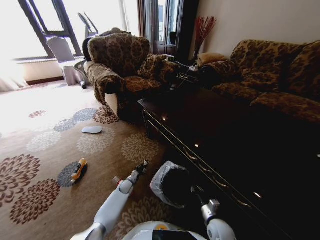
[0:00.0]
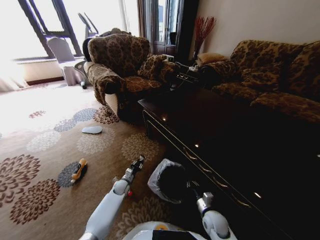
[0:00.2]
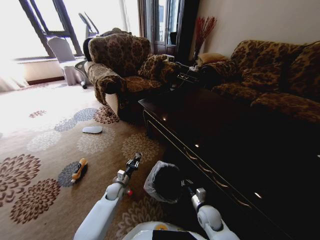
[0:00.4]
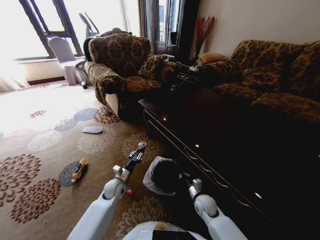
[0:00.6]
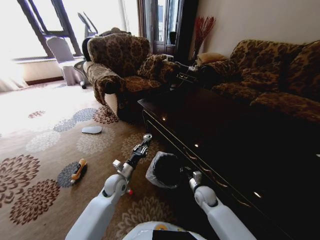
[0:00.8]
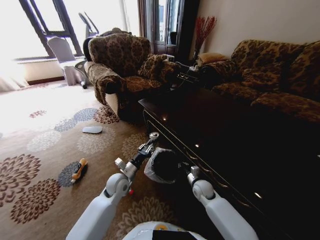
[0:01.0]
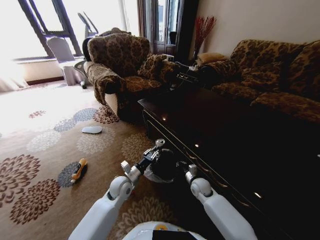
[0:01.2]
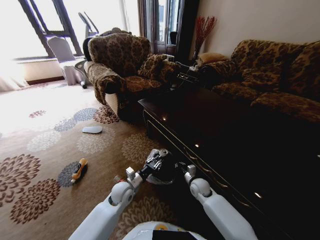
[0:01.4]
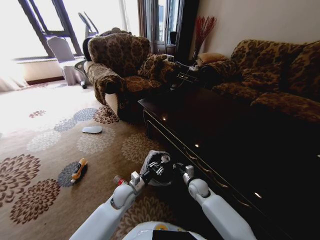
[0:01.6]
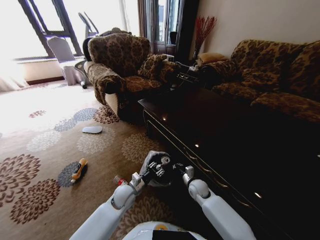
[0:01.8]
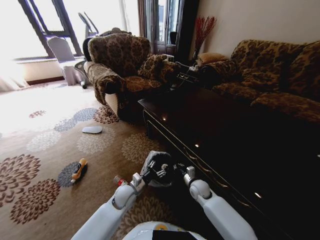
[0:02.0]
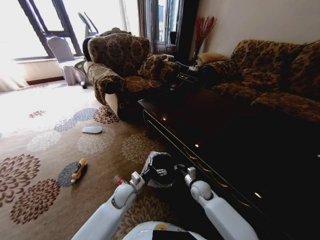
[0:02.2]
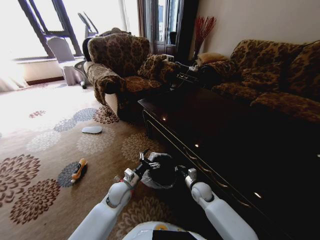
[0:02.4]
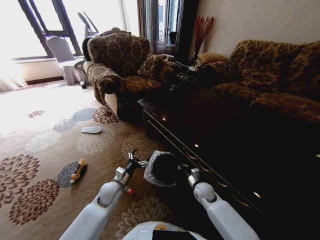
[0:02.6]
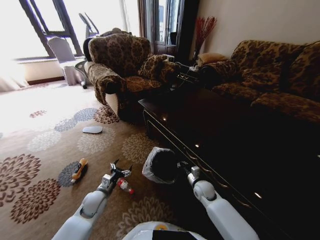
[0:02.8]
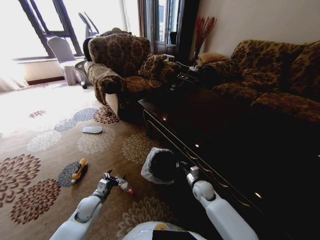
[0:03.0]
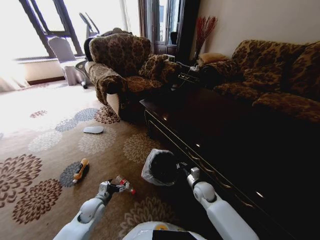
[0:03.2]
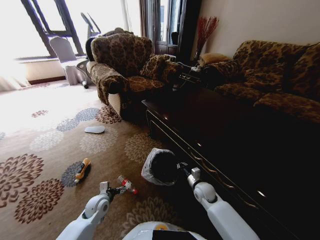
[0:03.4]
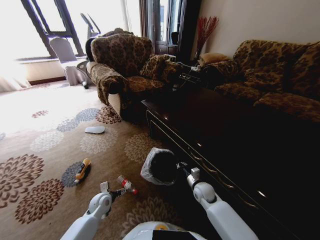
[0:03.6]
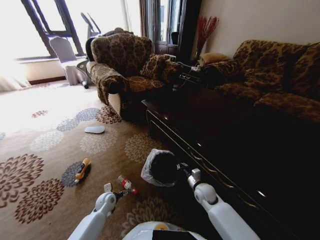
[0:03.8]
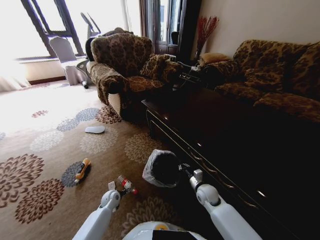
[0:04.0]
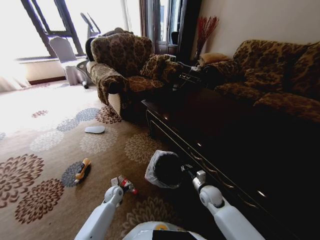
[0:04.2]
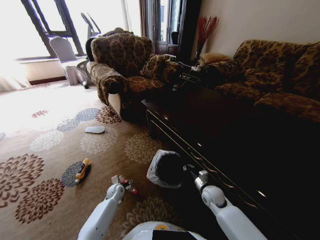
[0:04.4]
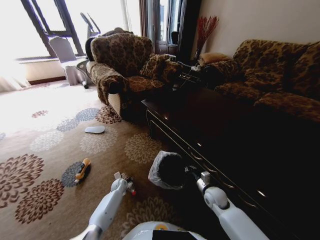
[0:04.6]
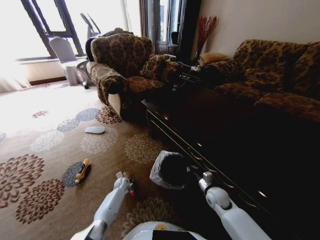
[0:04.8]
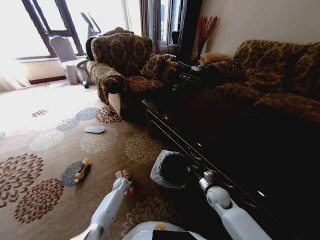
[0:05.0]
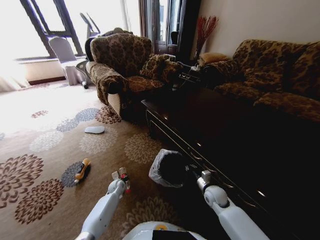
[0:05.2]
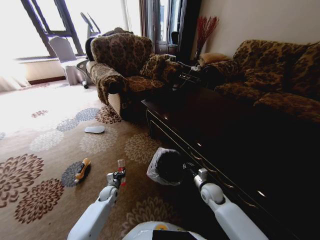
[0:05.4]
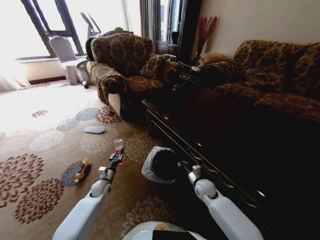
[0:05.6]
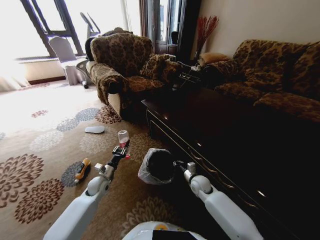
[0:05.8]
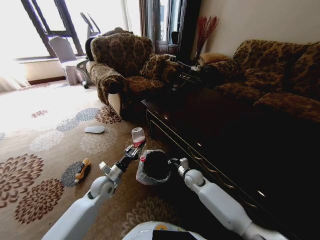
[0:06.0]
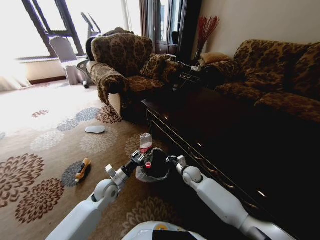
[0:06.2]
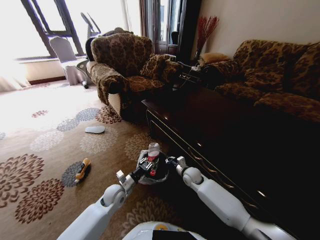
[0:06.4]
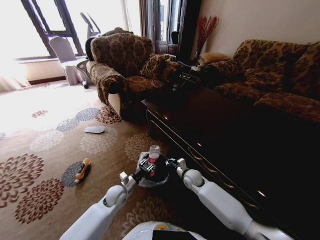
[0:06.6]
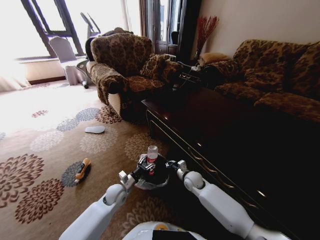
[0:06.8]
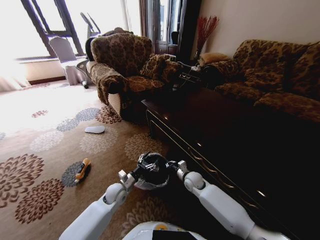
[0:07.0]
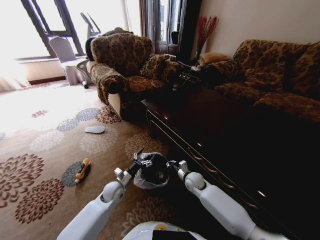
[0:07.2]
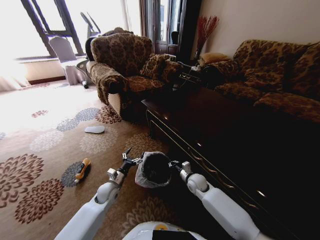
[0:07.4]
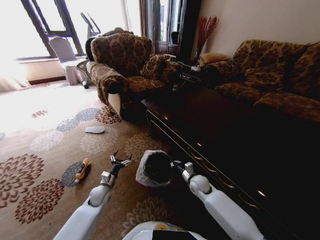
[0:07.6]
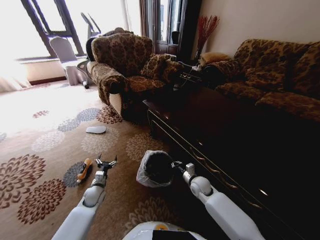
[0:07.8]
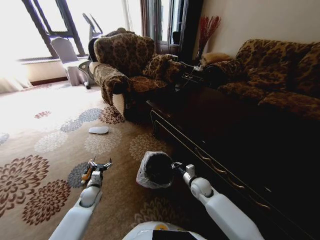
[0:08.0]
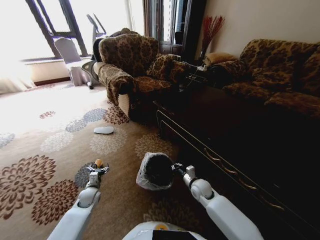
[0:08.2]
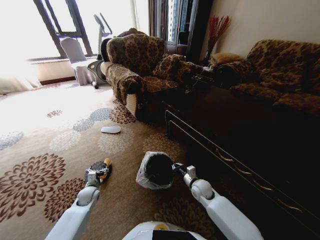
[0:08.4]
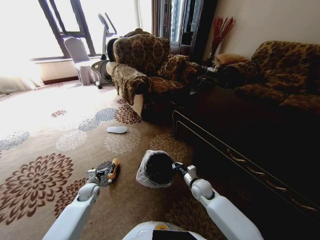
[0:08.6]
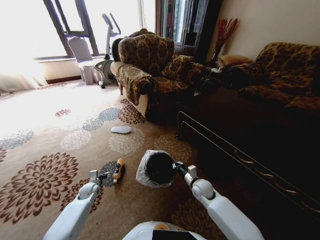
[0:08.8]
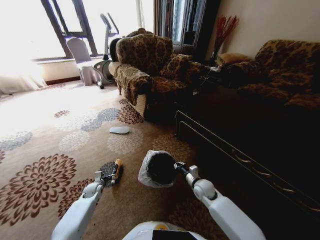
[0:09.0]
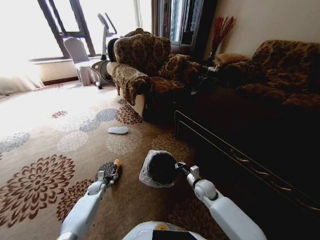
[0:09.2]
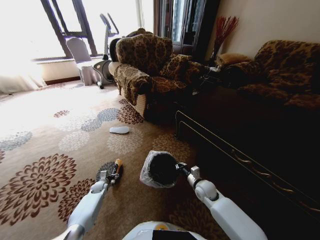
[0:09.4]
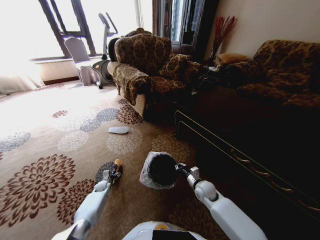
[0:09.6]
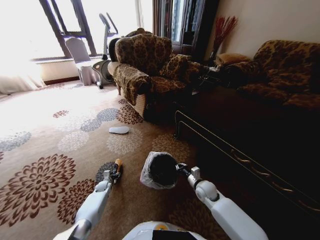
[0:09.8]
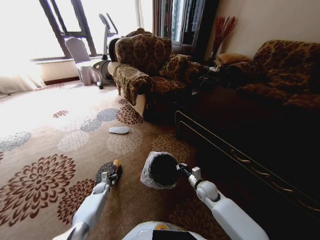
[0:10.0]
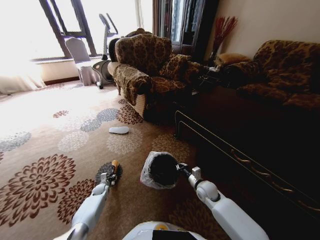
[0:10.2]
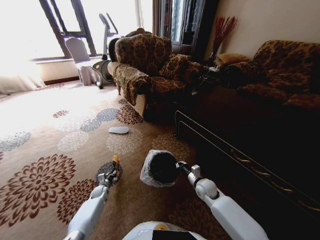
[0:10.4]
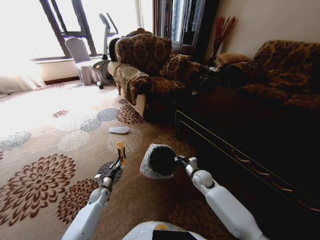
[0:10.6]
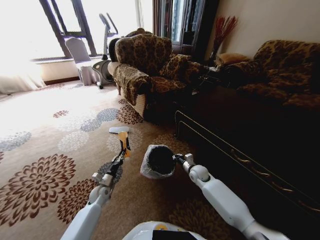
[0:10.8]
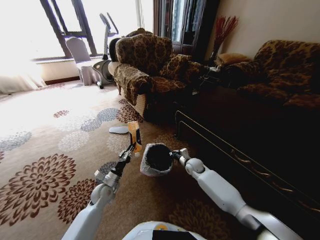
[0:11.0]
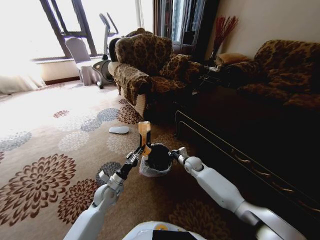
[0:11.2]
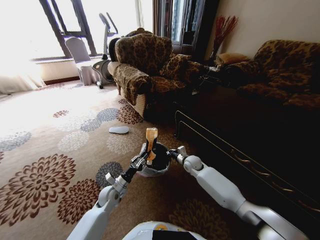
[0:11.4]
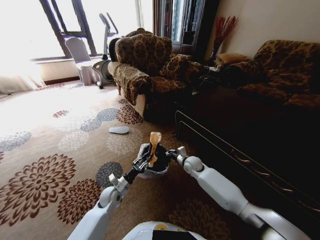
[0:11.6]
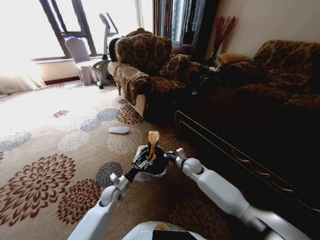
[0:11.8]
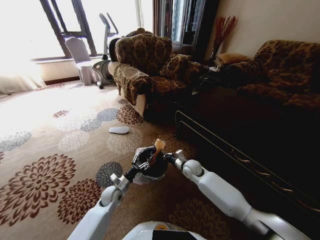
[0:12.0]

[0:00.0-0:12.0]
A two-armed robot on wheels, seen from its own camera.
Task of the whole recording: Pick up the trash from the ground and place it into the trash bin.
0:00.0 to 0:01.6: The right gripper shifts approximately 15 cm forward. The left gripper moves upward and backward, roughly 20 cm.
0:01.6 to 0:03.0: The left gripper shifts about 15 cm to the left, and opens up.
0:03.0 to 0:04.4: The left gripper is displaced downward, forward and to the right by about 15 cm.
0:04.4 to 0:06.0: The right gripper shifts about 10 cm forward and to the left. The left gripper goes approximately 20 cm upward, and closes its fingers.
0:06.0 to 0:07.6: The left gripper moves downward, approximately 10 cm, and opens.
0:07.6 to 0:09.0: The left gripper shifts approximately 10 cm to the left and downward.
0:09.0 to 0:10.4: The left gripper travels downward by roughly 5 cm, and closes up.
0:10.4 to 0:12.0: The left gripper shifts some 20 cm upward and to the right, and opens its fingers. Meanwhile the right gripper travels forward and to the left by about 10 cm.

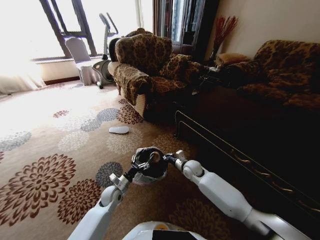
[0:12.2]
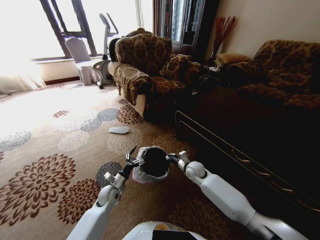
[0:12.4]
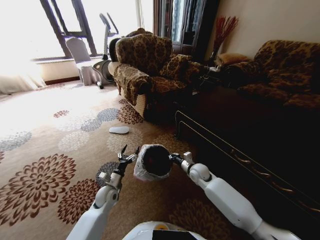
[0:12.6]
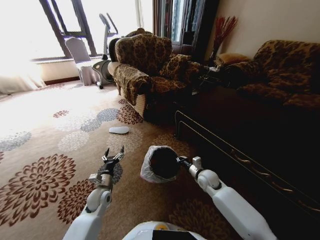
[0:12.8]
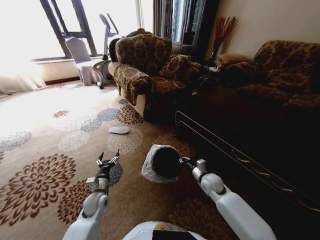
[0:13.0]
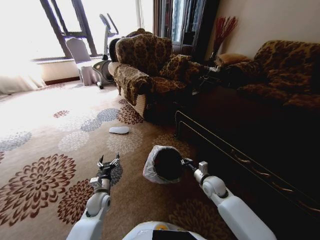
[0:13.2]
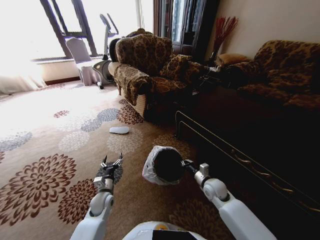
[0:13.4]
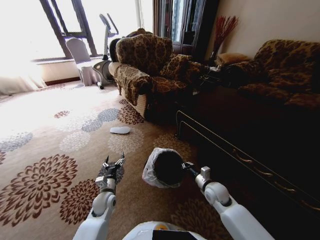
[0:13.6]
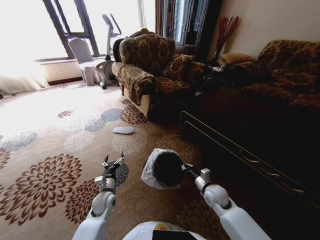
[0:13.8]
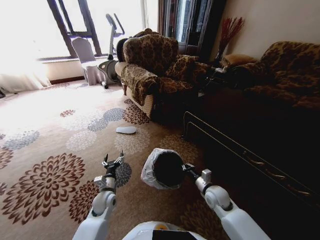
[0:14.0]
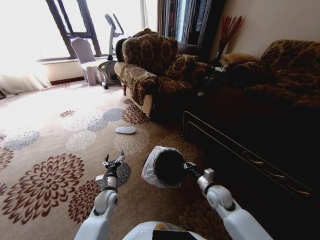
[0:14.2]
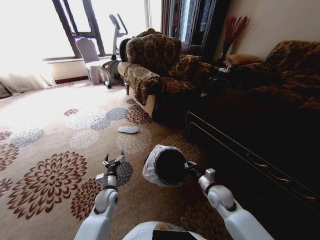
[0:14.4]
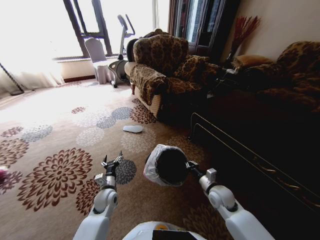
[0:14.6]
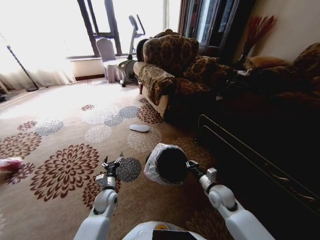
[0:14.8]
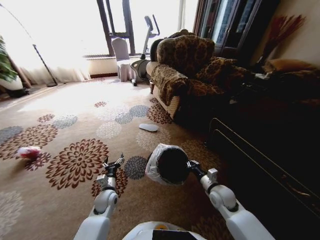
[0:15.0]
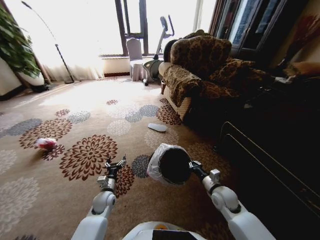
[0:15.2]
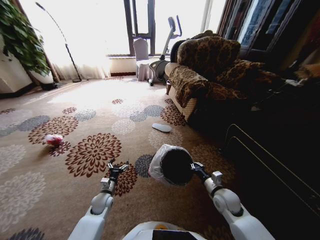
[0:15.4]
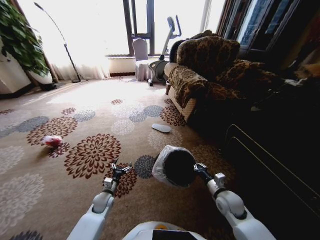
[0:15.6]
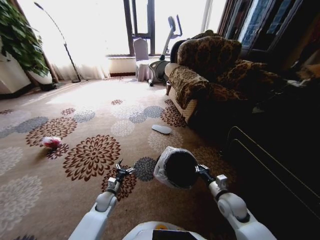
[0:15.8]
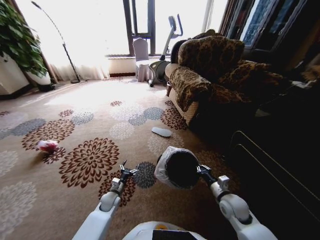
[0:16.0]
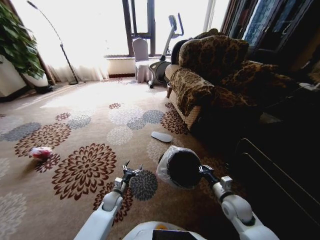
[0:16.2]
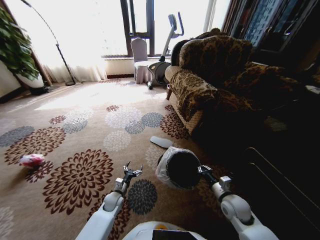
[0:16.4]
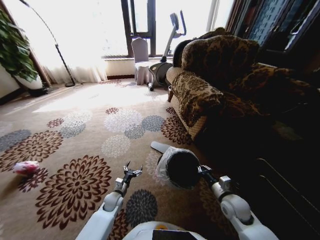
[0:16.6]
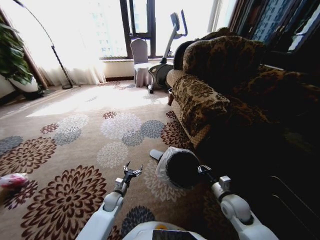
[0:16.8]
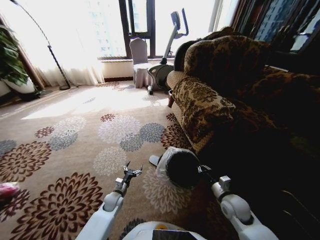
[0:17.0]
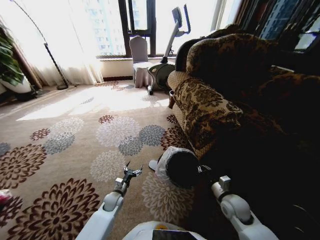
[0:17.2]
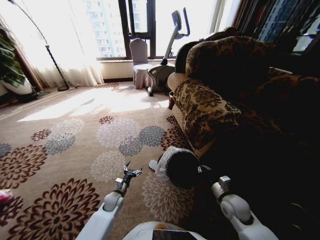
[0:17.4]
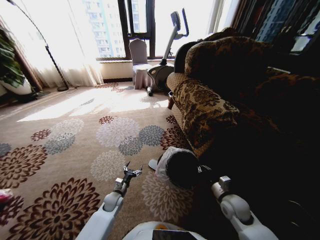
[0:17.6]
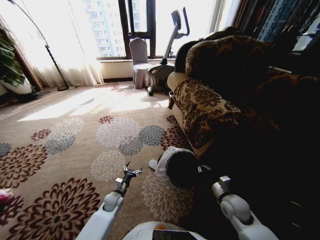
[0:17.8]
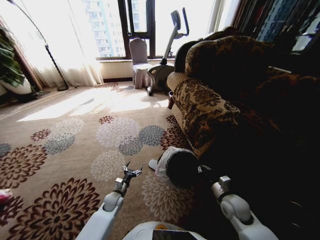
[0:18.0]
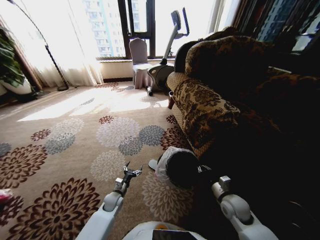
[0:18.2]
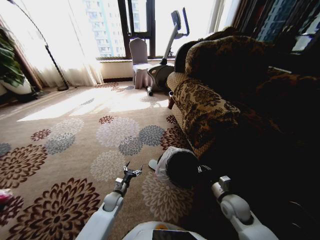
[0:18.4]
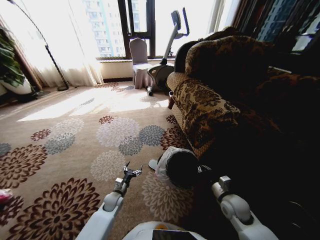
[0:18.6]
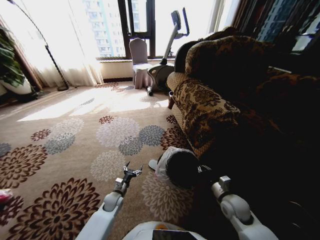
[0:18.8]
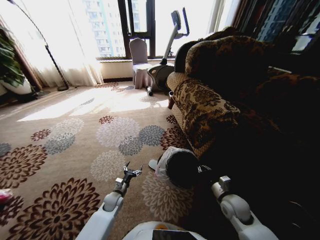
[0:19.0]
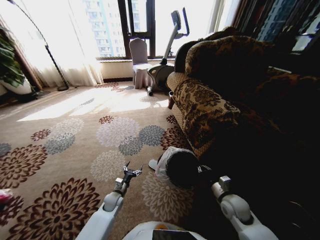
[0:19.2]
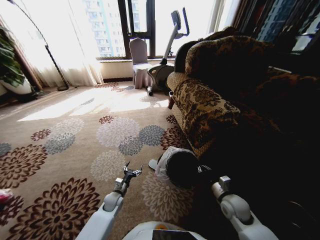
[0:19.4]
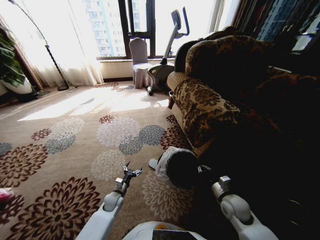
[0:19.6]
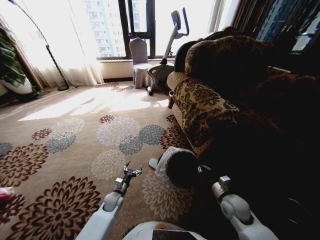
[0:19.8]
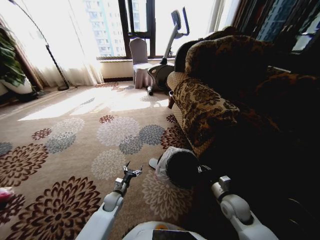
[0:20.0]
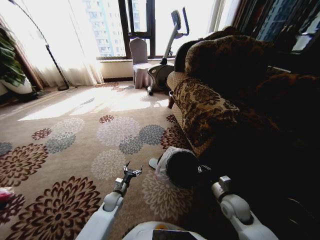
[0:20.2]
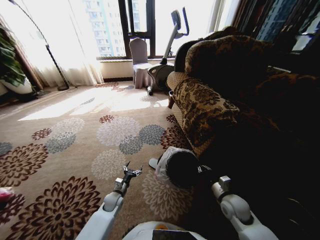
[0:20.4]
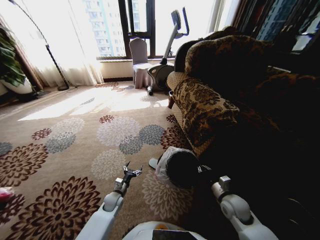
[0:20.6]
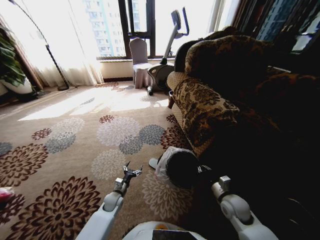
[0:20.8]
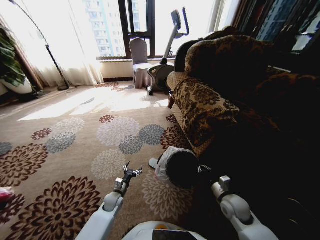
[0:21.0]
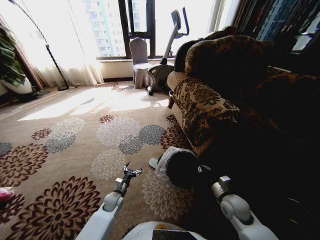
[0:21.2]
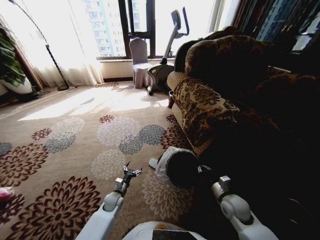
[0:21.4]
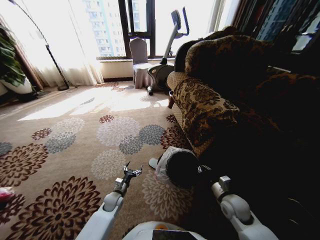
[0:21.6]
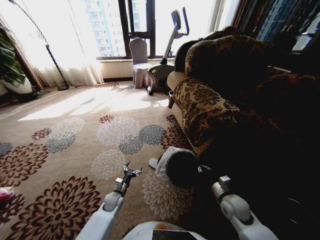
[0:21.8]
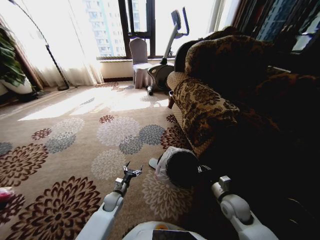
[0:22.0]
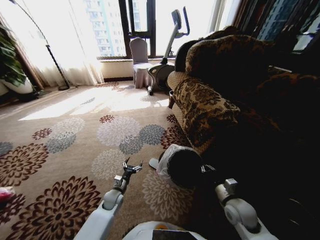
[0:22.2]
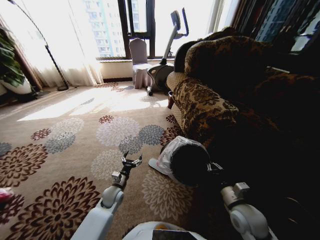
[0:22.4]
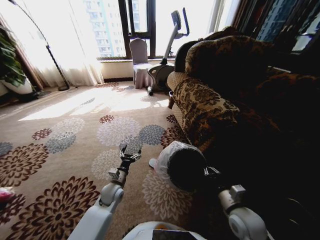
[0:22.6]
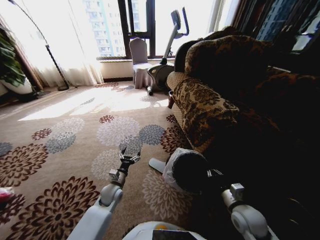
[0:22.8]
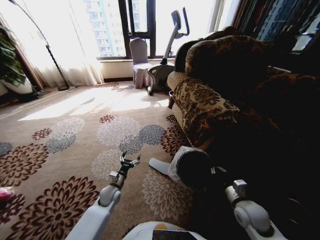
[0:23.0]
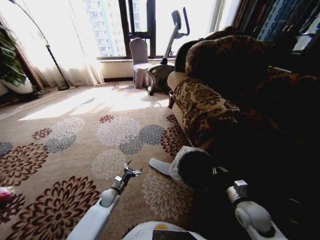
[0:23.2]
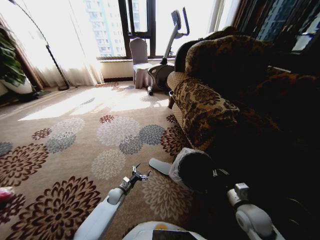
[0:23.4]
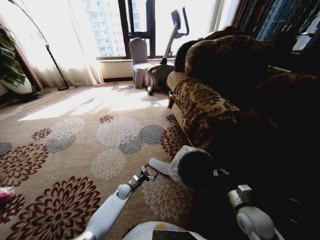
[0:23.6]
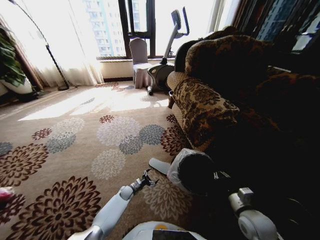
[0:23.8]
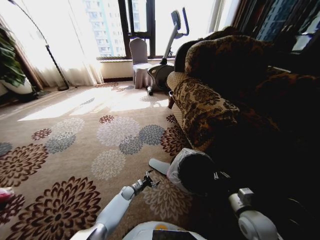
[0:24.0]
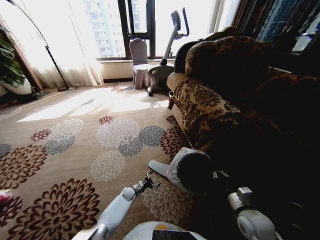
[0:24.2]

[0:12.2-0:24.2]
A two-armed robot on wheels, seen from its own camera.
Task of the whole recording: Pick up the trash from the ground and place it into the trash bin.
0:12.2 to 0:13.8: The right gripper is displaced backward and to the right by roughly 15 cm.
0:15.2 to 0:16.6: The left gripper is displaced downward by approximately 5 cm.
0:18.2 to 0:21.2: Neither gripper changes place.
0:21.2 to 0:22.6: The right gripper shifts some 10 cm backward and upward, while the left gripper shifts roughly 10 cm upward.
0:22.6 to 0:24.2: The left gripper shifts about 20 cm downward.
